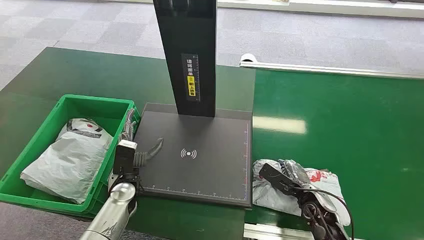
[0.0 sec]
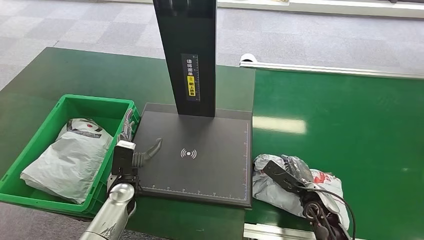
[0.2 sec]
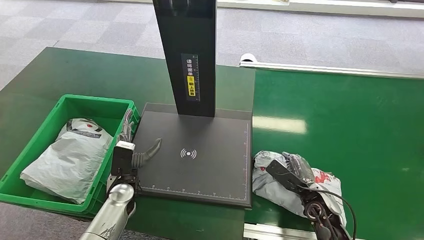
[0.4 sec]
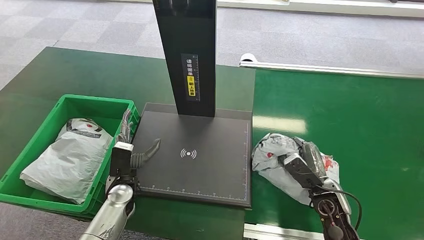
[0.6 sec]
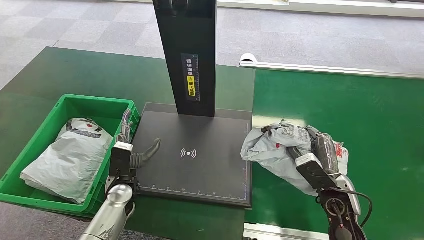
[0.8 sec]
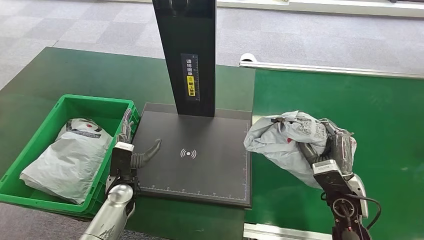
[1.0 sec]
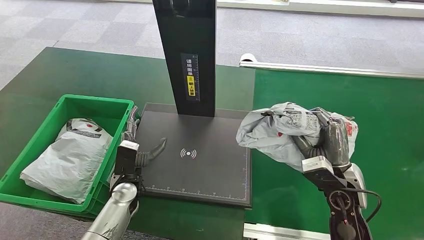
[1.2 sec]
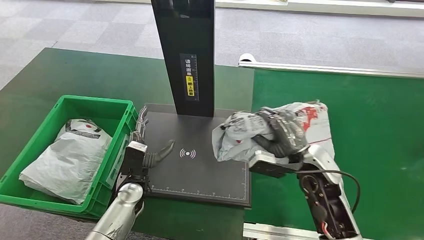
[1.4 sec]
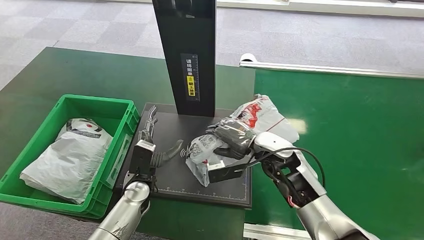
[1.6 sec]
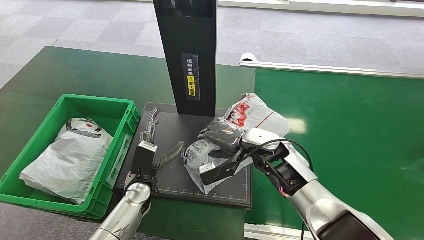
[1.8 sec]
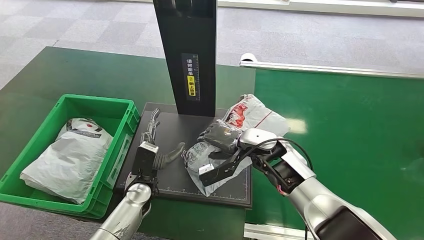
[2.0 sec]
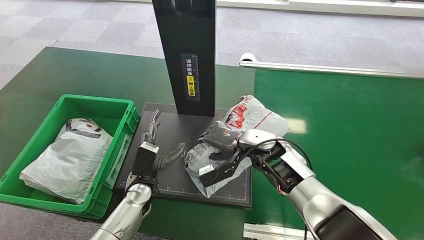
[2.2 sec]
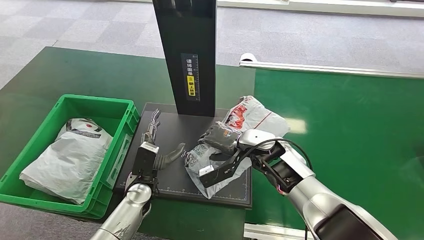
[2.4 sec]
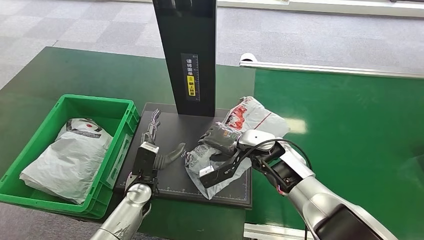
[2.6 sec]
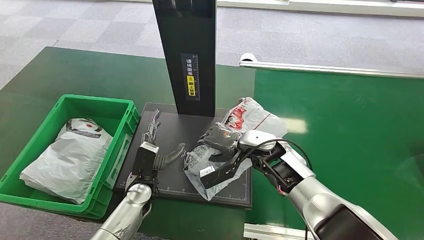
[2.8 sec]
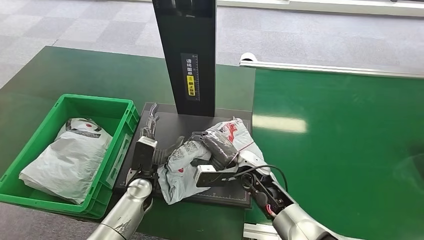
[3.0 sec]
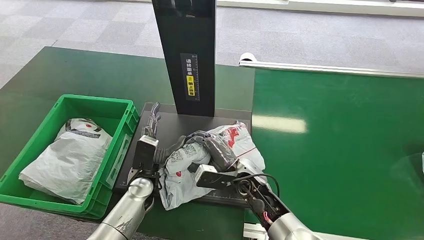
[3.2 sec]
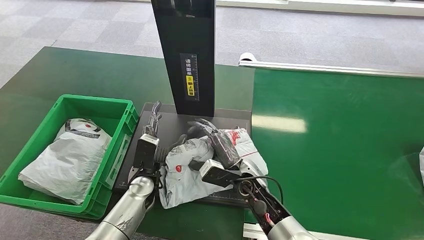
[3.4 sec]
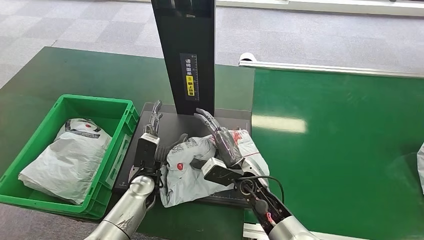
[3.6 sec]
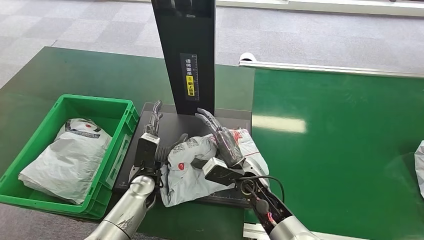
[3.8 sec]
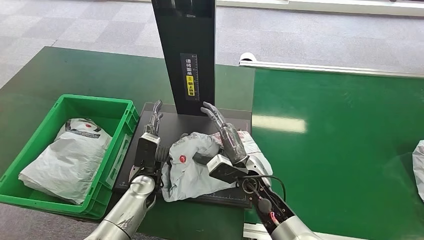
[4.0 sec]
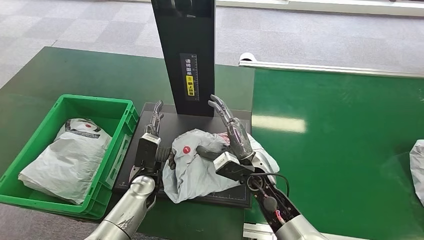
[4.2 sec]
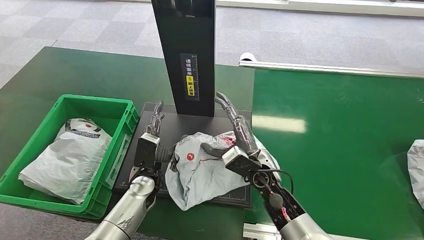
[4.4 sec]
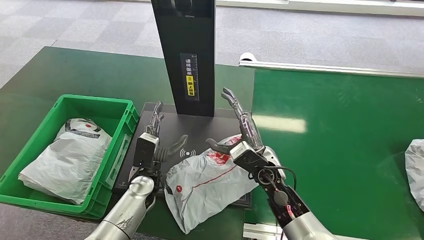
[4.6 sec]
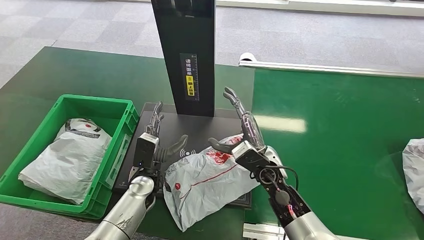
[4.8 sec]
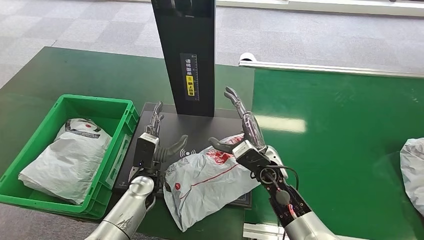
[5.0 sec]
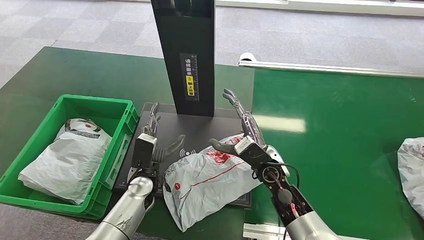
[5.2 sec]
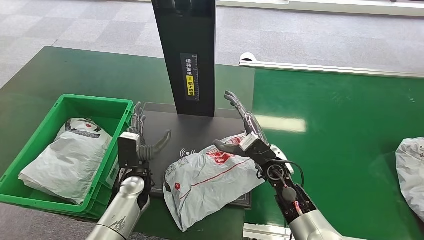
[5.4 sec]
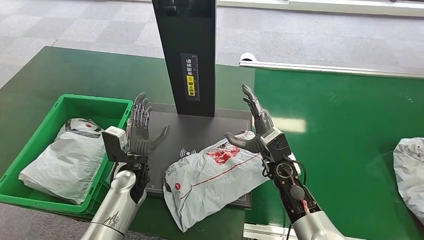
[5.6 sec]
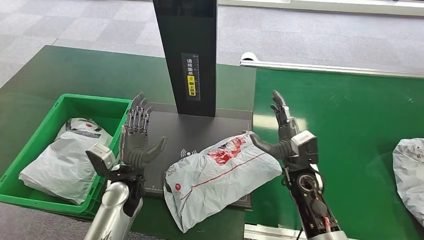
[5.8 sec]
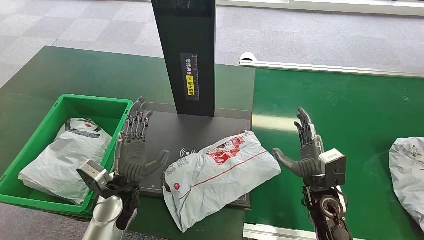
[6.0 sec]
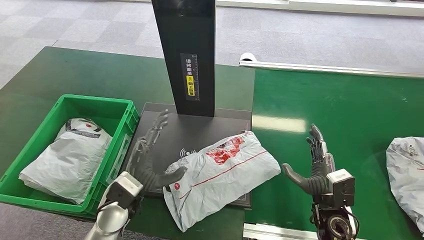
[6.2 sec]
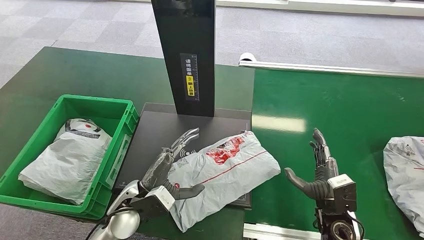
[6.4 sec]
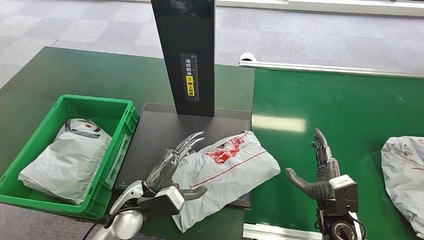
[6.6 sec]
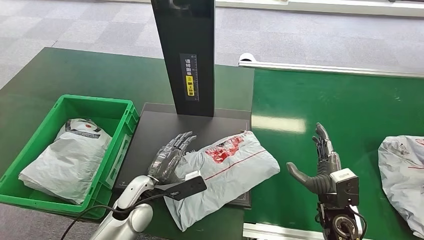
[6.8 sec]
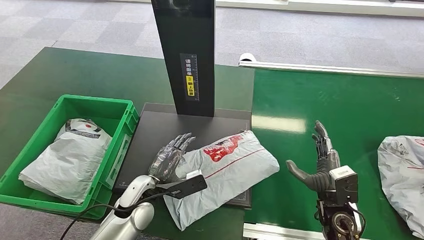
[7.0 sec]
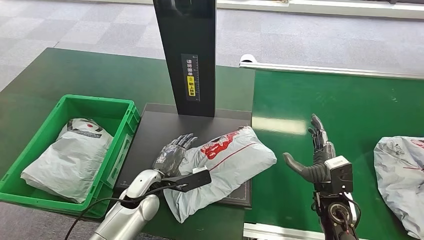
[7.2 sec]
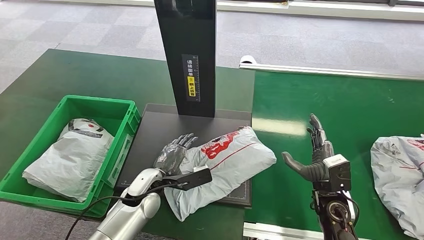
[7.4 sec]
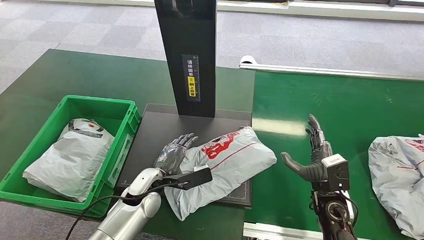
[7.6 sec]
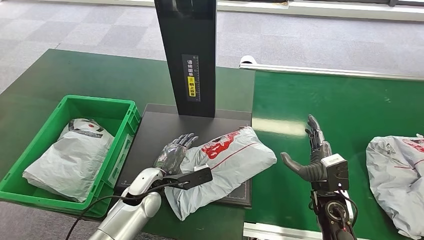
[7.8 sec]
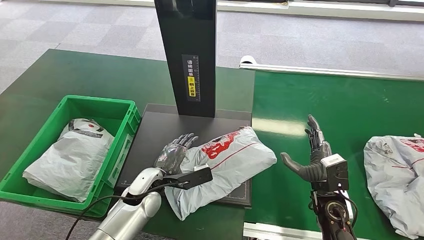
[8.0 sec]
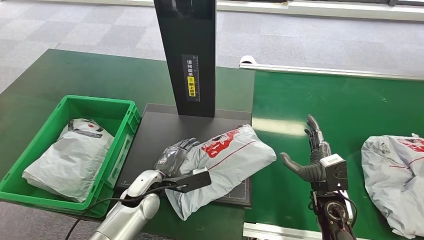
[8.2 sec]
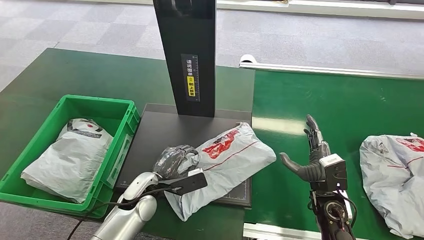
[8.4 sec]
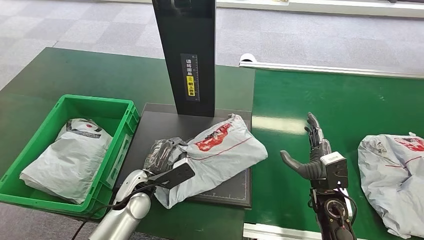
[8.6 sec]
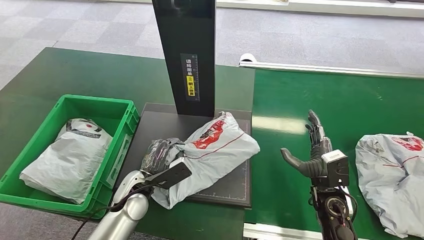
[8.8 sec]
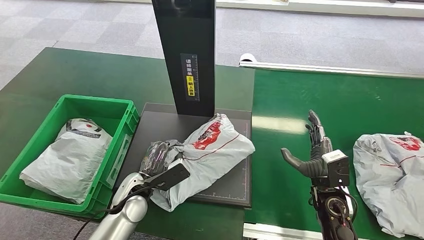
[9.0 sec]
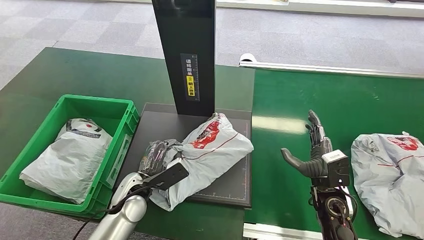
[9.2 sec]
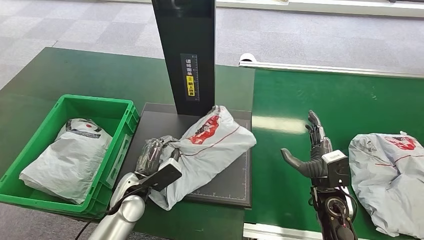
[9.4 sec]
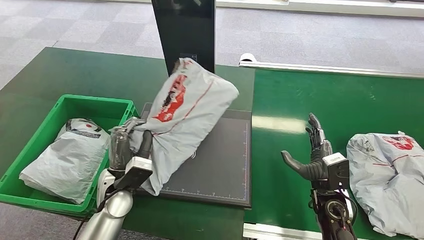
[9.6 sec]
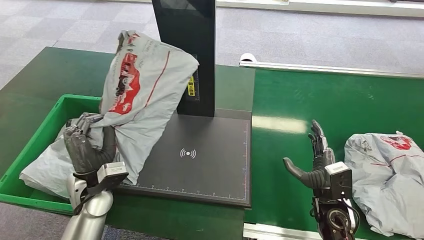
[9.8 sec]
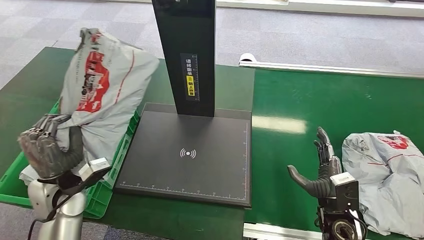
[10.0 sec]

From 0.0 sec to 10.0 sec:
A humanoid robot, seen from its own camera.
Step, from 0.0 sec to 1.2 sec: Pick up the package from the conveyor belt.
Step, from 1.4 sec to 5.2 sec: Place the package onto the inbound machine.
Step, from 5.4 sec to 9.6 sec: Pick up the package from the inbound machine.
From 1.4 sec to 2.8 sec: The right hand goes roughly 10 cm to the left and forward.
From 2.8 sec to 4.2 sec: The right hand travels backward by about 5 cm.

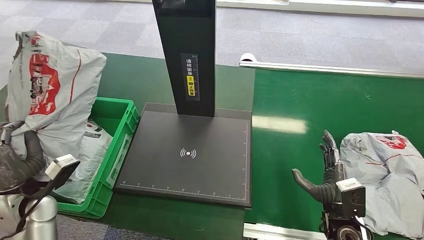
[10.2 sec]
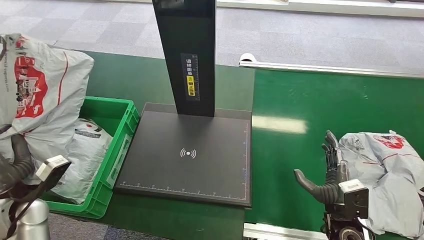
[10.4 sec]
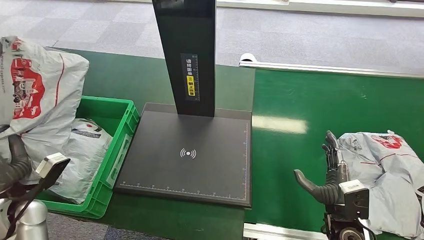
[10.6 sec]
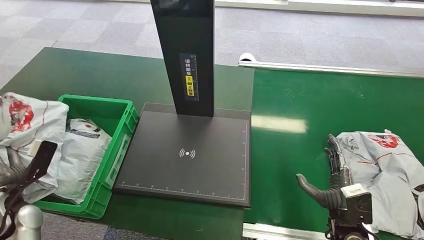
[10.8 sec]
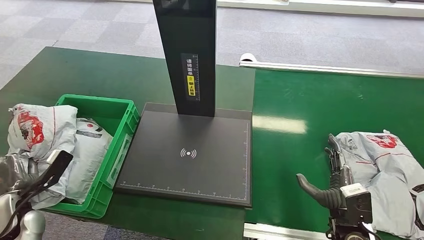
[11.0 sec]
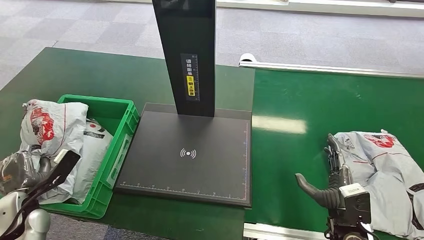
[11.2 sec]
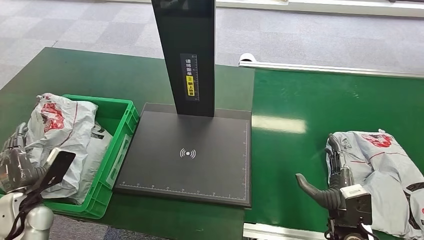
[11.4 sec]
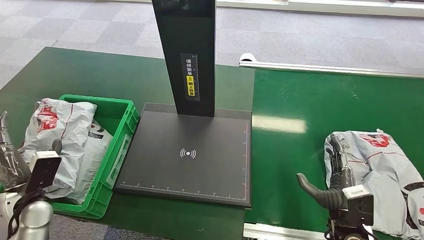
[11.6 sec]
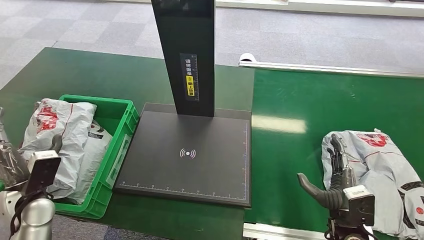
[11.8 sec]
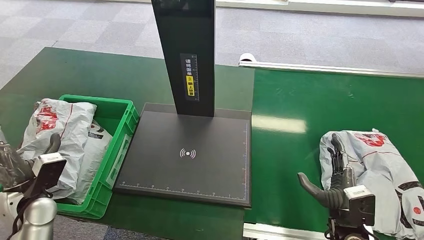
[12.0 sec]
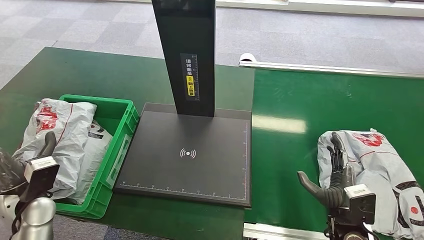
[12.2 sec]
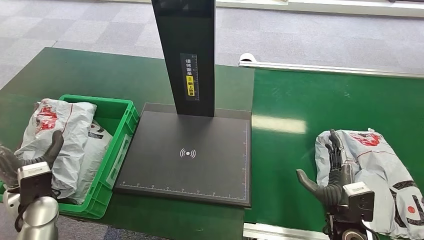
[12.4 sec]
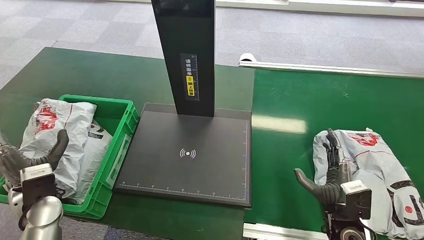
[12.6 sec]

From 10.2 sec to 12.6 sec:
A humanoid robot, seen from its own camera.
Step, from 10.2 sec to 12.6 sec: Place the package into the parcel locker.
From 10.2 sec to 11.4 sec: The left hand goes roughly 5 cm downward.
From 11.4 sec to 12.6 sec: The left hand is displaced to the right by some 5 cm.
